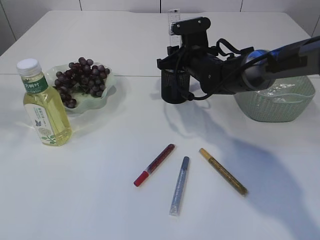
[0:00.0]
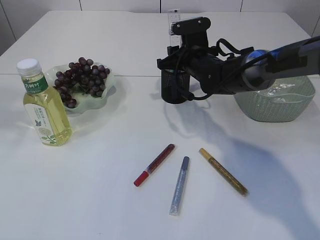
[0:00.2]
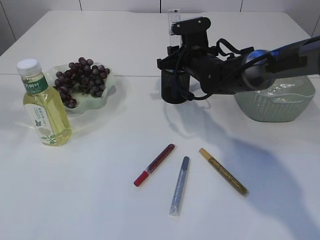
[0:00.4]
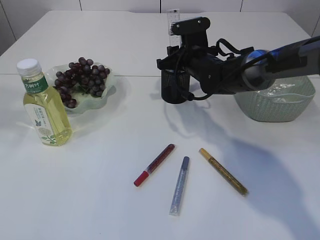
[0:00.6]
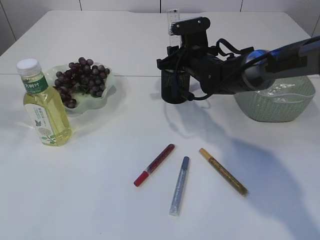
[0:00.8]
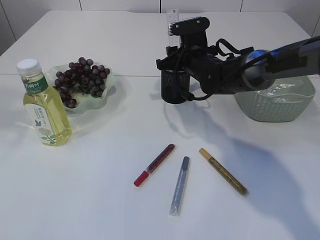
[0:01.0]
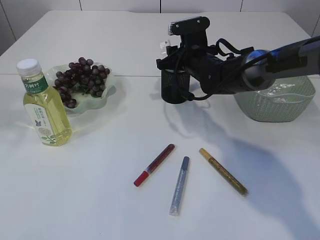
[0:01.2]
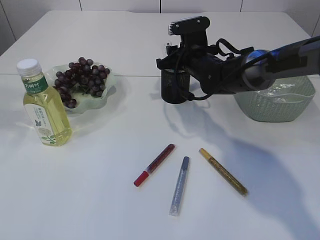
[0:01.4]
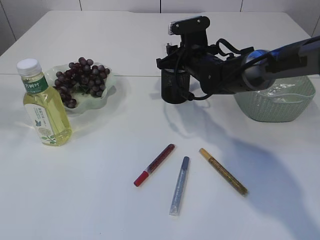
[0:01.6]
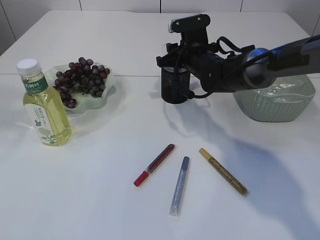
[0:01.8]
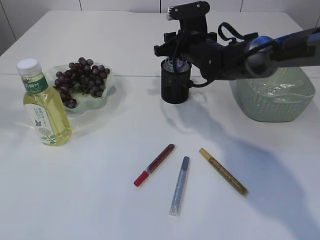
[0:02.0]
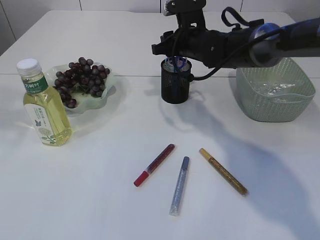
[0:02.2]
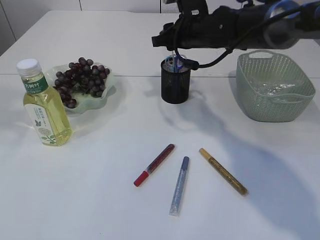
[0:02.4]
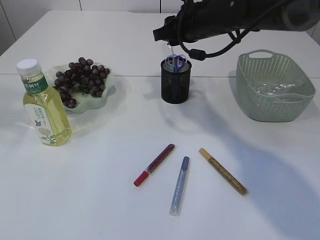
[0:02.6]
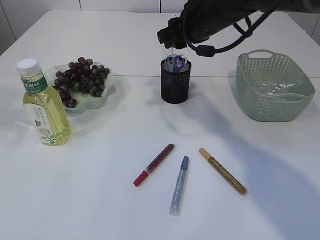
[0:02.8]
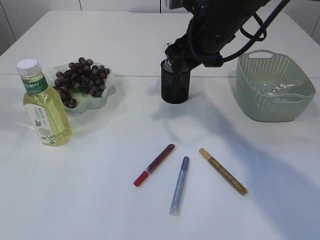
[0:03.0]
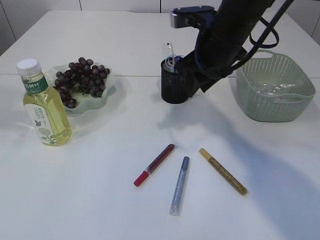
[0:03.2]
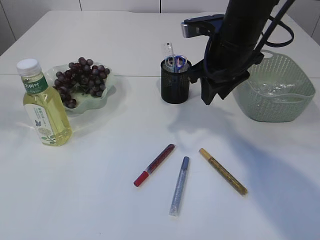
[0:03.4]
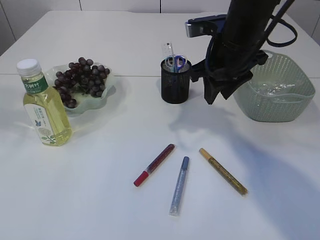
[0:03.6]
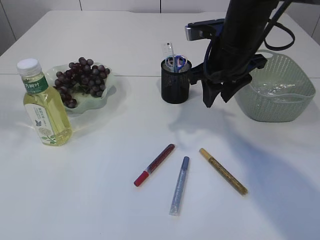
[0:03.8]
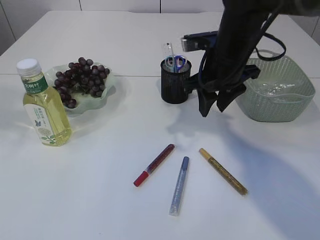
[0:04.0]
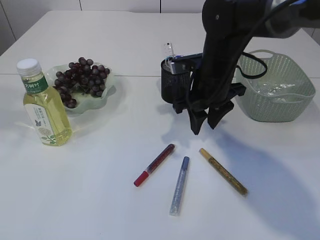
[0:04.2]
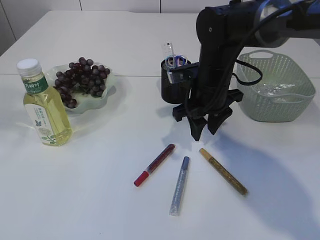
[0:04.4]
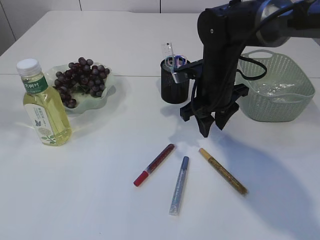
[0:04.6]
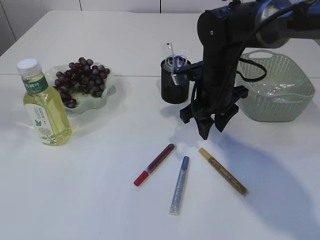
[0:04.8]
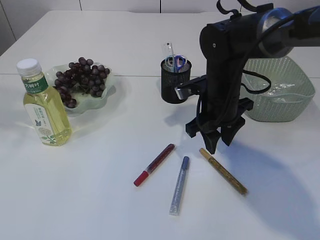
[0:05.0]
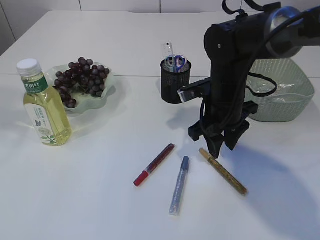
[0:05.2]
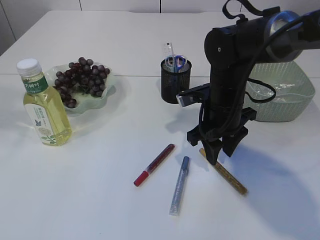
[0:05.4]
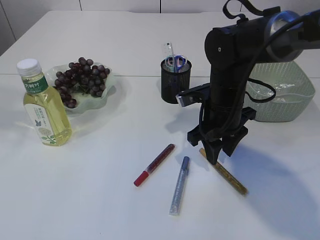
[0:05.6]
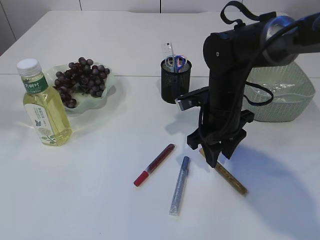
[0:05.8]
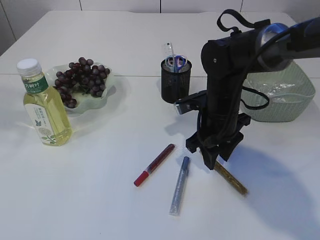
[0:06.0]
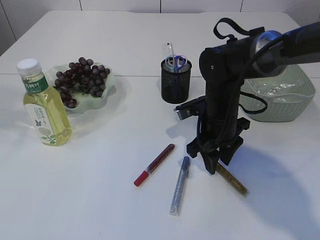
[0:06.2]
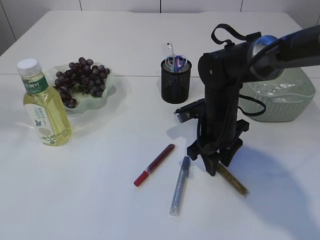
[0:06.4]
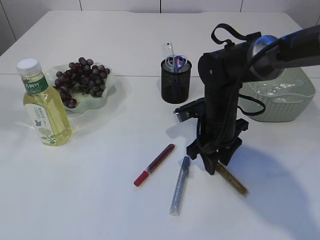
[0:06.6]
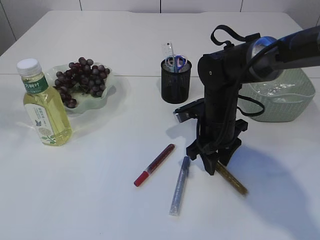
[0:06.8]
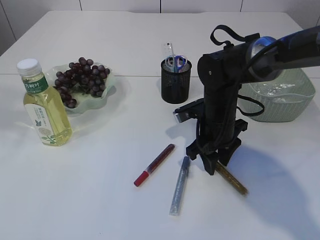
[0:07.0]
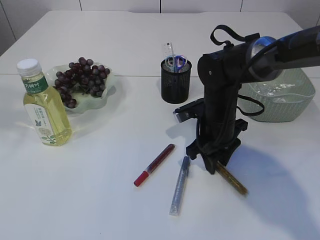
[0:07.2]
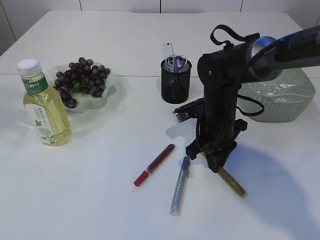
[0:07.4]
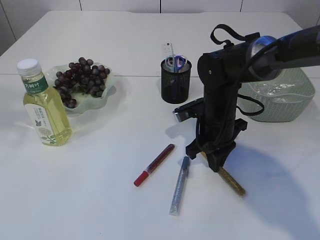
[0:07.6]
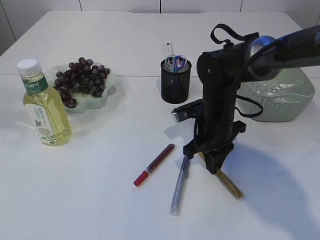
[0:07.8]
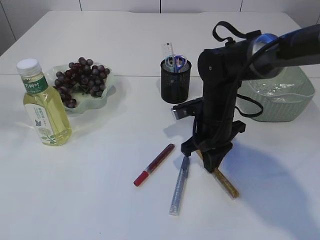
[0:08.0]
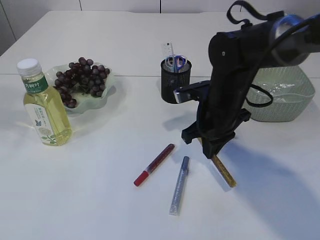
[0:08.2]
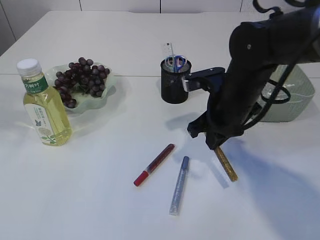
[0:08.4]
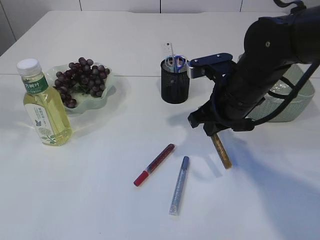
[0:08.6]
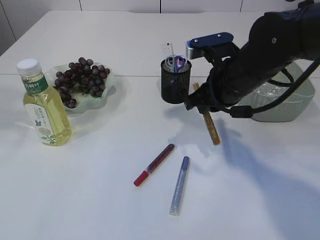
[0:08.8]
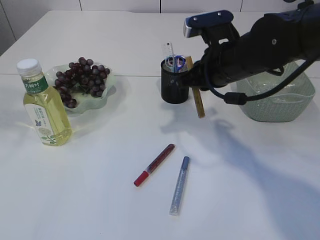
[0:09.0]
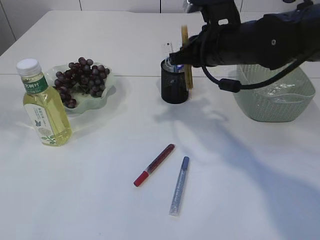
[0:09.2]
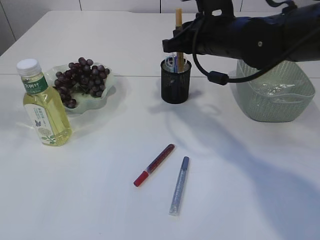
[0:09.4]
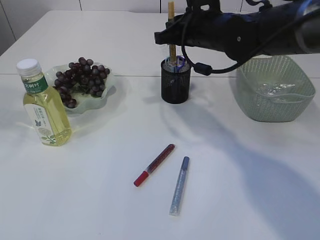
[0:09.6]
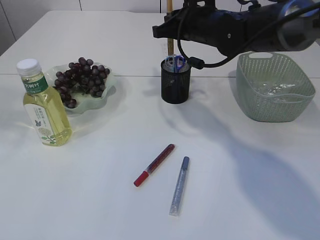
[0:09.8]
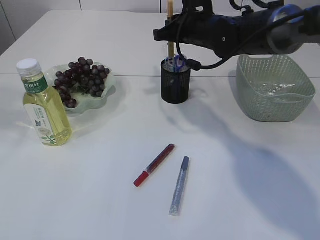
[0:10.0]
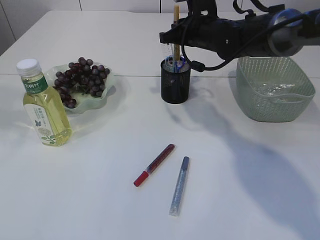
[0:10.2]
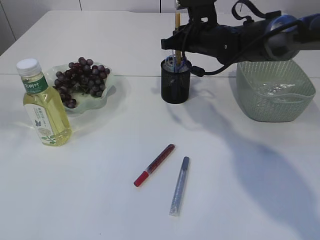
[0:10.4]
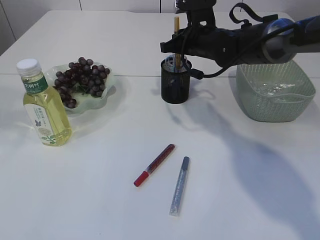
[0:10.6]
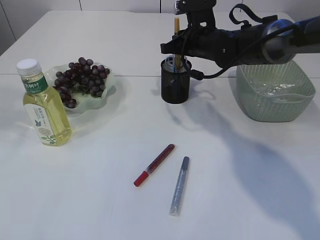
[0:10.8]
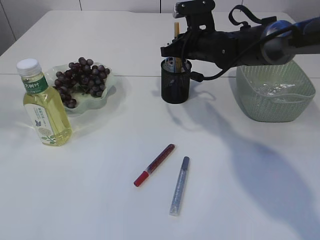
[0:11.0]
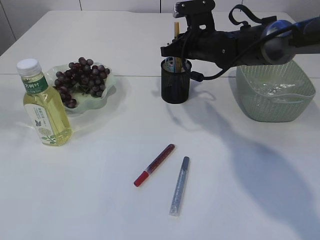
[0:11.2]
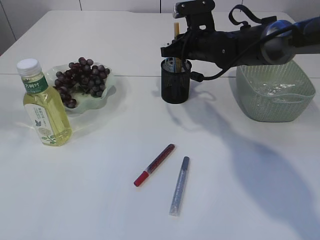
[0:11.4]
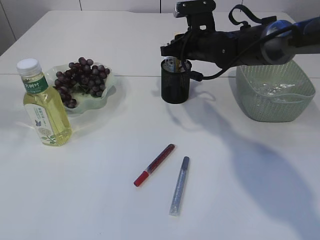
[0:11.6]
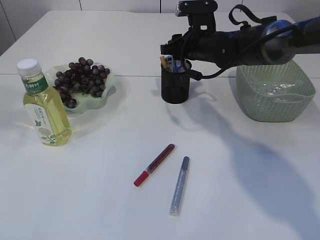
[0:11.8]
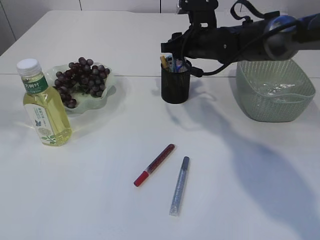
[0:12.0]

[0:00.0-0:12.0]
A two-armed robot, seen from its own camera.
Step, 0:00.0 to 0:02.6: Place the ruler into the pen holder.
Step, 0:02.8 to 0:08.6: pick up the yellow glue.
0:00.0 to 0:01.6: Both grippers stay about where they are.
0:01.6 to 0:03.0: The right gripper goes about 15 cm upward and backward.
0:03.0 to 0:04.4: The right gripper goes approximately 10 cm downward.
0:04.4 to 0:06.0: The right gripper ends up roughly 5 cm from where it was.
0:06.0 to 0:07.6: The right gripper closes its fingers.
0:07.6 to 0:09.0: The right gripper is displaced upward by roughly 10 cm.
0:09.0 to 0:10.4: The right gripper travels forward by some 15 cm.
0:10.4 to 0:12.0: The right gripper opens up.

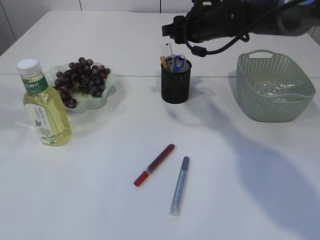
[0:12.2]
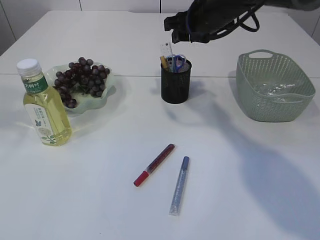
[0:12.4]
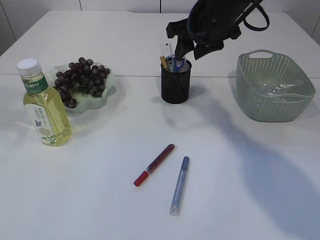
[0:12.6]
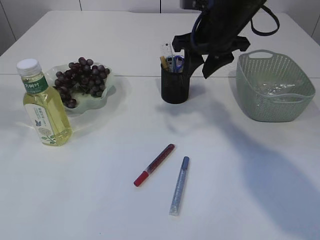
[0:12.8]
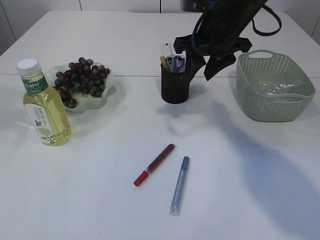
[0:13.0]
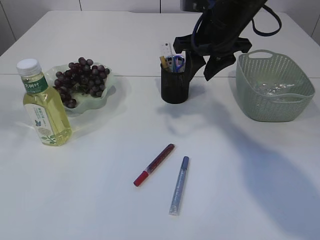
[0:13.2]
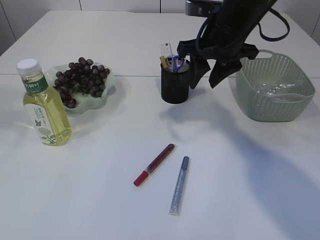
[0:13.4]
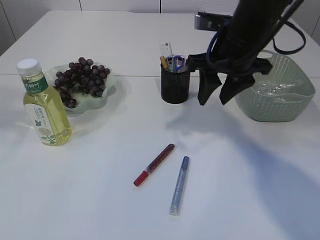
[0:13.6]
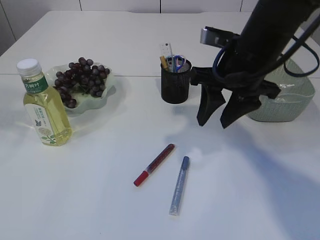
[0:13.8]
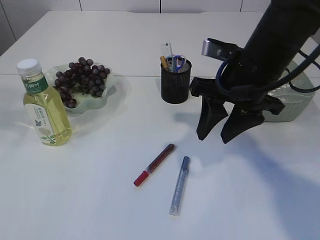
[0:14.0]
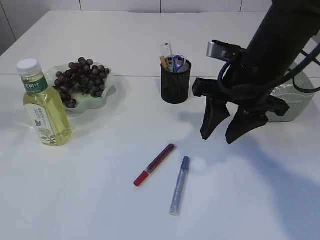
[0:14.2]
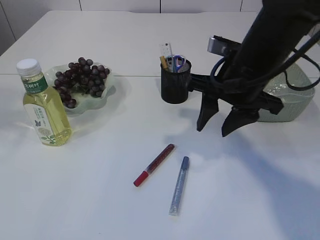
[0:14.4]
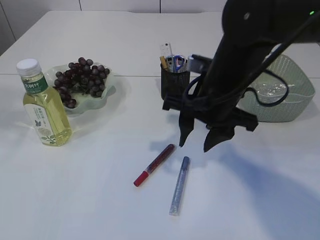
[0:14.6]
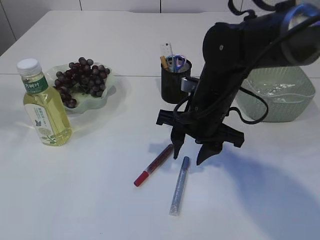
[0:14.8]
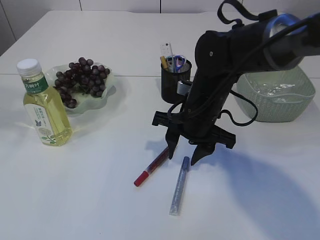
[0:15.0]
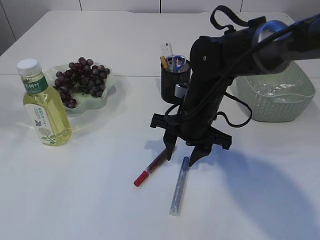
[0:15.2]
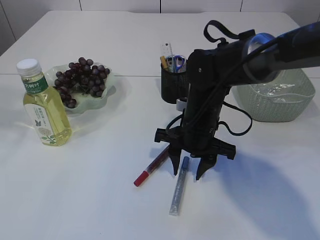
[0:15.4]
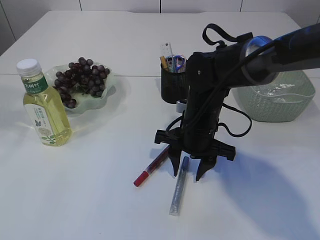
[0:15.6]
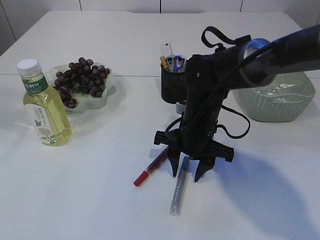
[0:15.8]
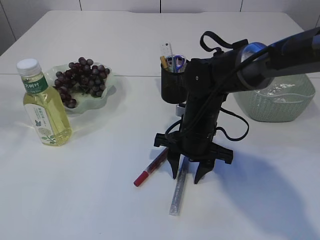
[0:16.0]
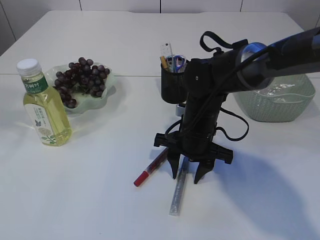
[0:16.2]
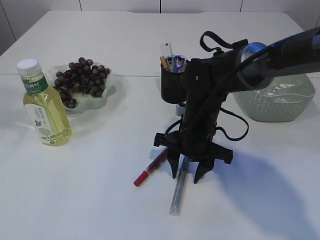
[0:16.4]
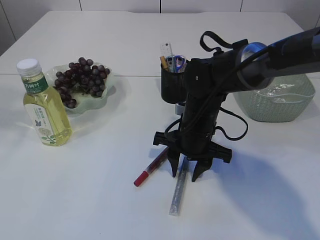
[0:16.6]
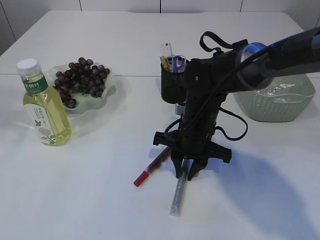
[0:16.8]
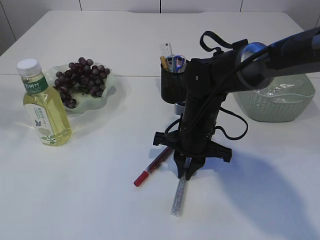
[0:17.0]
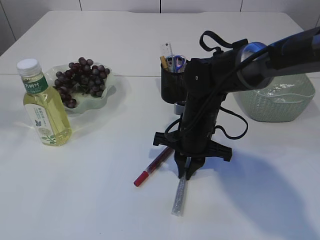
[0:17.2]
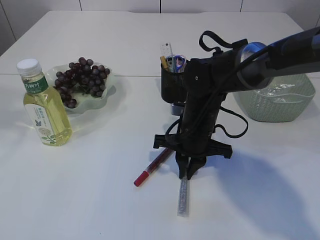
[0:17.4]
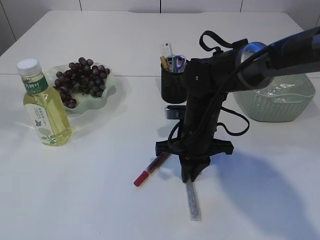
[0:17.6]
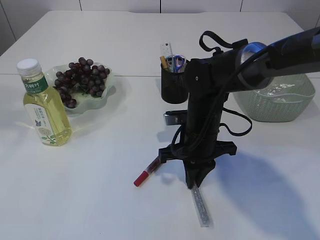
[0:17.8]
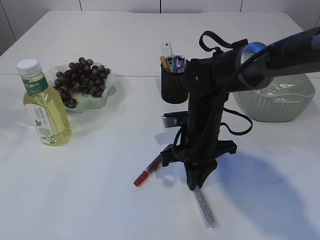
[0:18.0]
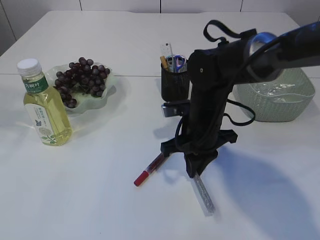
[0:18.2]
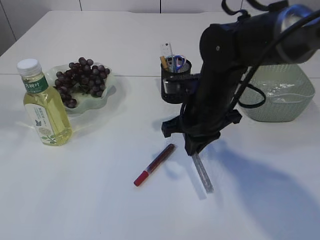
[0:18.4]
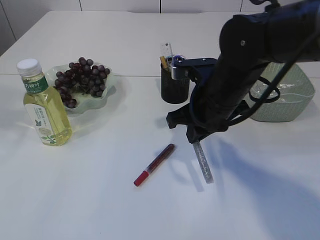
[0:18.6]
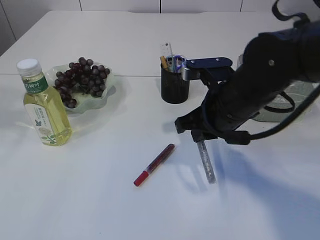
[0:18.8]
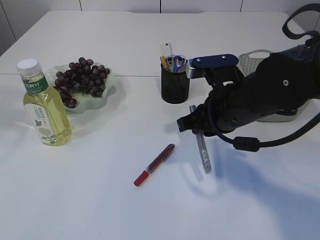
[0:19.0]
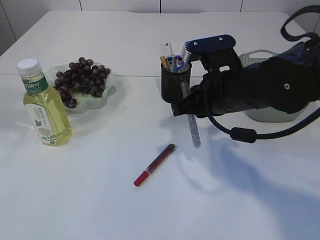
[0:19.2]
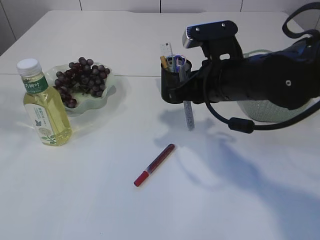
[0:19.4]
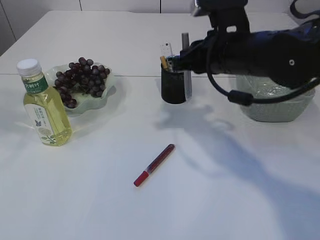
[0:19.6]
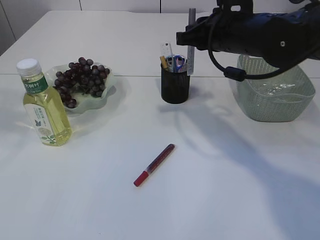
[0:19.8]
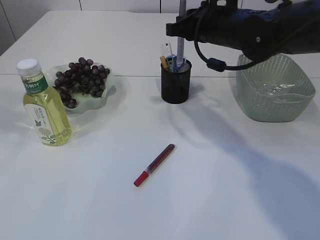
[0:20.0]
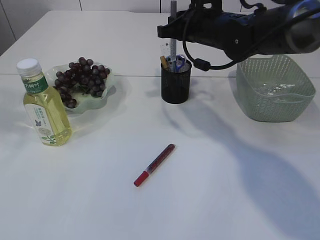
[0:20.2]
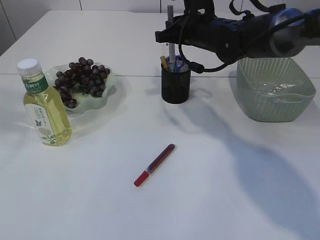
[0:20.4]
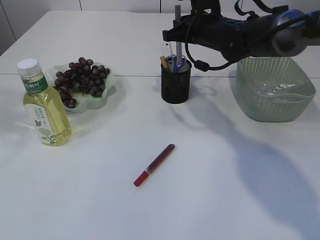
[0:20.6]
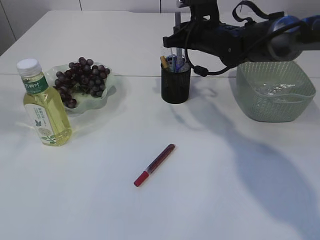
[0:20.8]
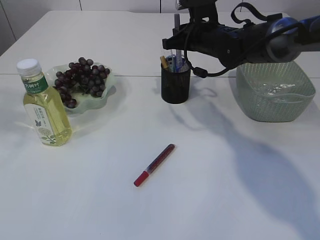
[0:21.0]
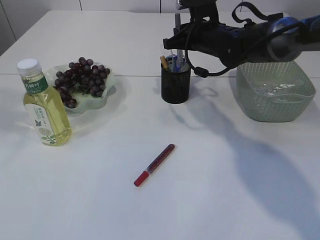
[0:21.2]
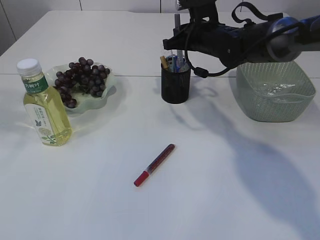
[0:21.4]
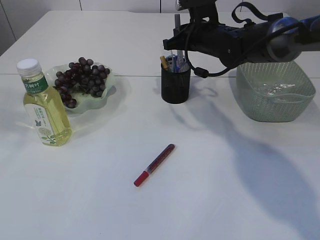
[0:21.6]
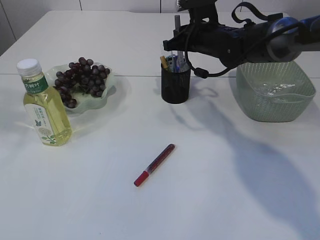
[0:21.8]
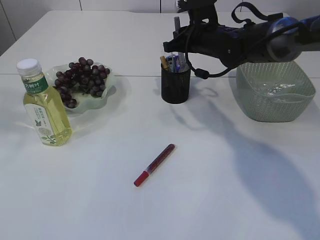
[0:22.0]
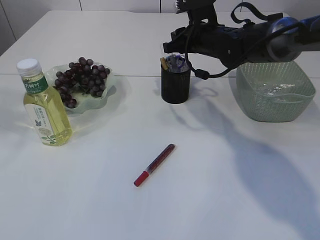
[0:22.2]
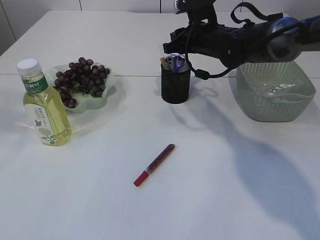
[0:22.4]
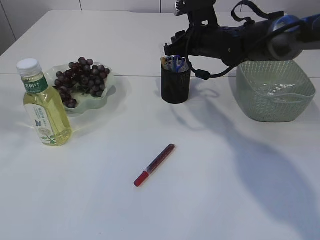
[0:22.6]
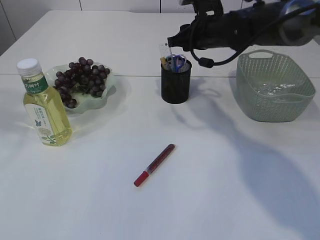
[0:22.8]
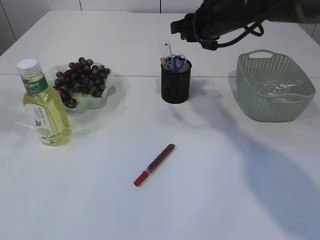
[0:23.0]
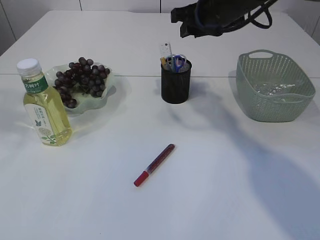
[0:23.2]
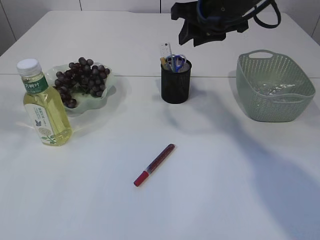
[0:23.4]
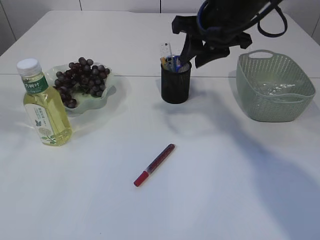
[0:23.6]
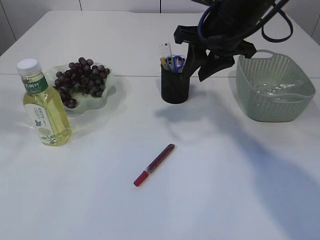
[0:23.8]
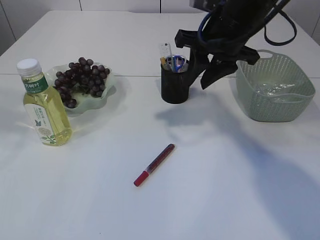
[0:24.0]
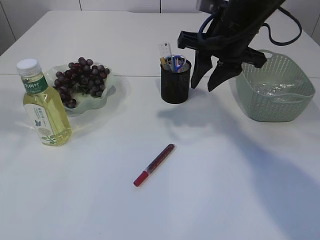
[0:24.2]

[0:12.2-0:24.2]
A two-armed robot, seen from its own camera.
Step, 0:12.2 to 0:18.6: pick up the silver glue.
Step, 0:18.8 to 0:22.8: place the silver glue into the pen holder.
0:12.2 to 0:13.8: The right gripper heads backward, covering approximately 15 cm.
0:13.8 to 0:15.2: The right gripper travels downward and to the left by some 15 cm.
0:15.2 to 0:16.6: The grippers make only small movements.
0:16.6 to 0:18.2: The right gripper closes its fingers.
0:18.2 to 0:19.8: The right gripper heads upward, covering approximately 15 cm.
0:19.8 to 0:21.2: The right gripper travels forward and downward by some 10 cm.
0:21.2 to 0:22.6: The right gripper opens its fingers.
0:22.6 to 0:24.2: The right gripper shifts some 15 cm backward and upward.
